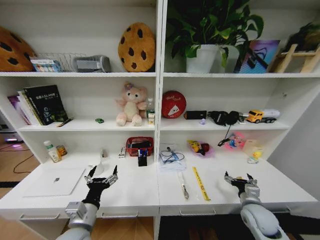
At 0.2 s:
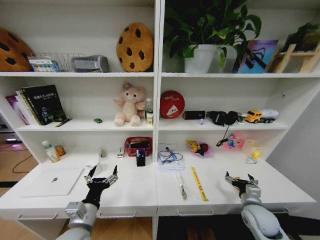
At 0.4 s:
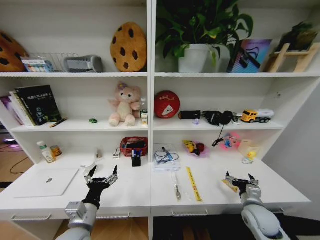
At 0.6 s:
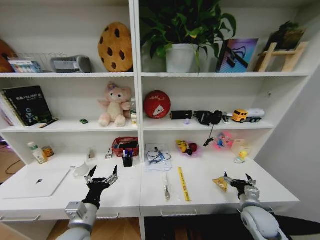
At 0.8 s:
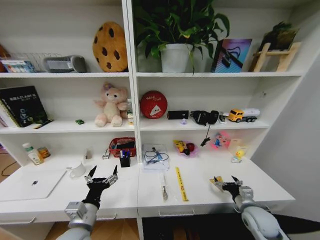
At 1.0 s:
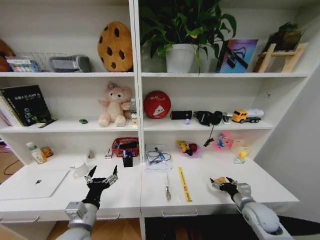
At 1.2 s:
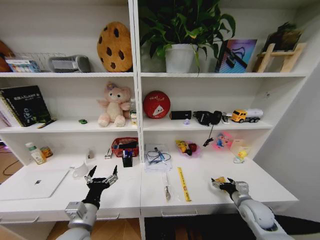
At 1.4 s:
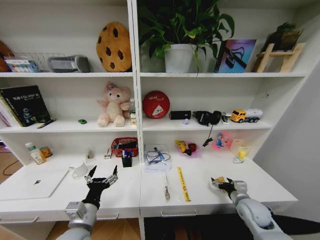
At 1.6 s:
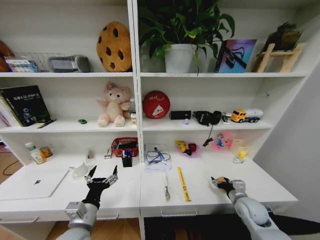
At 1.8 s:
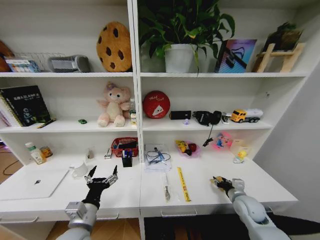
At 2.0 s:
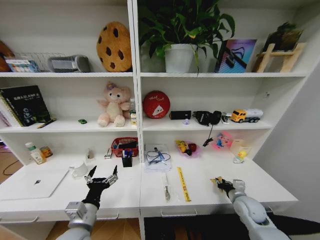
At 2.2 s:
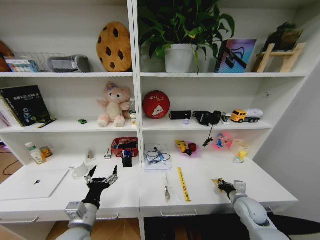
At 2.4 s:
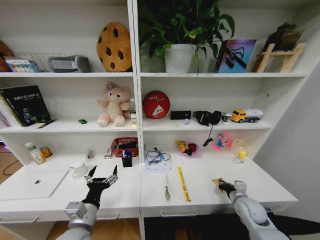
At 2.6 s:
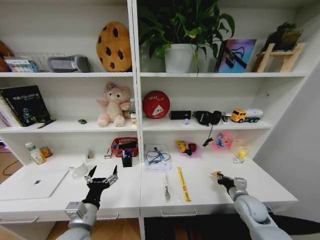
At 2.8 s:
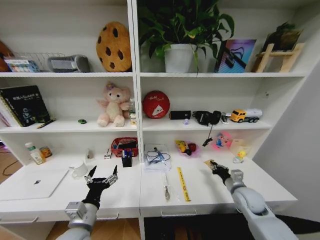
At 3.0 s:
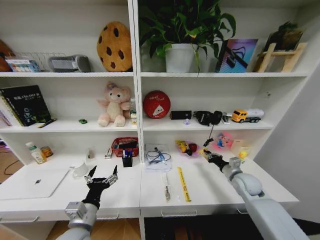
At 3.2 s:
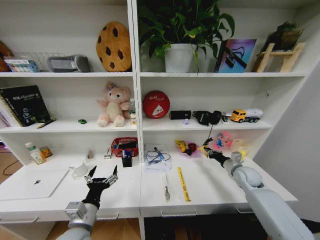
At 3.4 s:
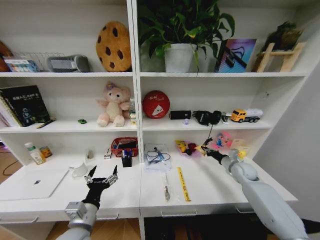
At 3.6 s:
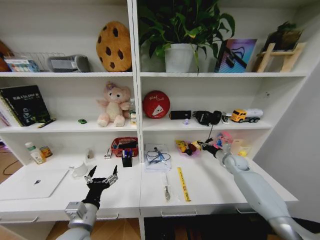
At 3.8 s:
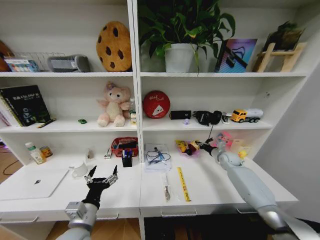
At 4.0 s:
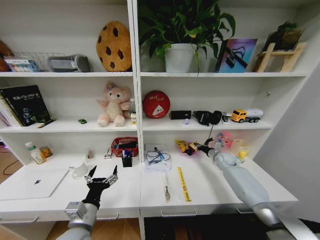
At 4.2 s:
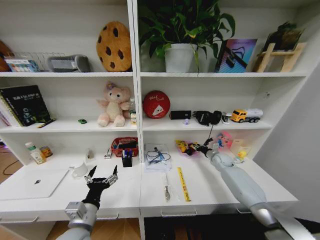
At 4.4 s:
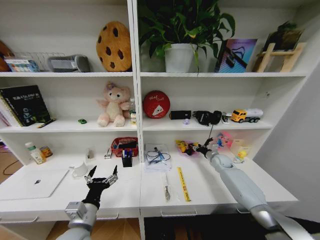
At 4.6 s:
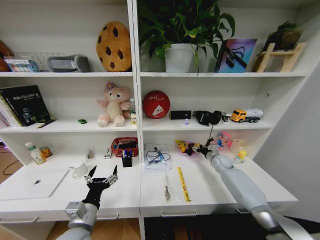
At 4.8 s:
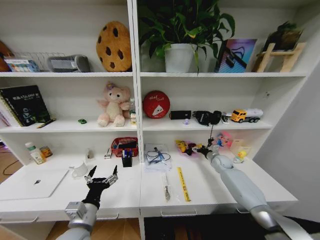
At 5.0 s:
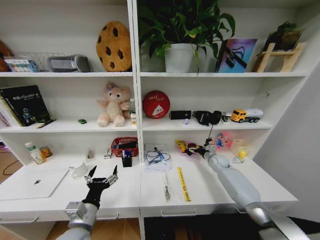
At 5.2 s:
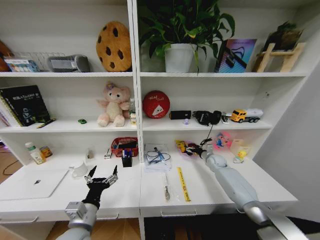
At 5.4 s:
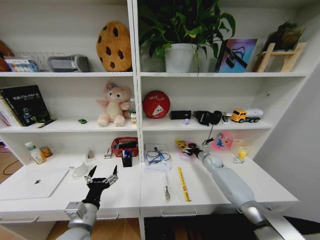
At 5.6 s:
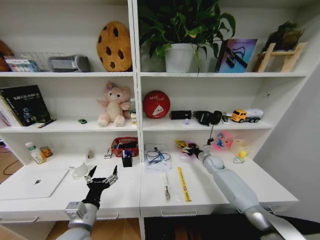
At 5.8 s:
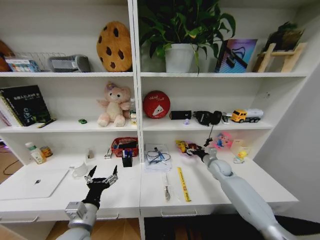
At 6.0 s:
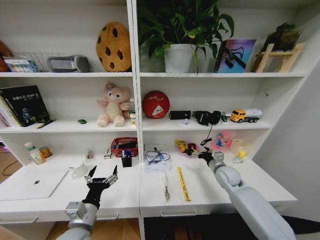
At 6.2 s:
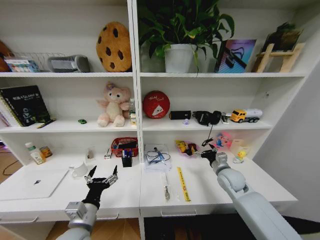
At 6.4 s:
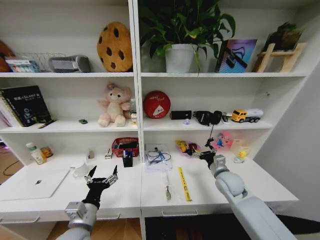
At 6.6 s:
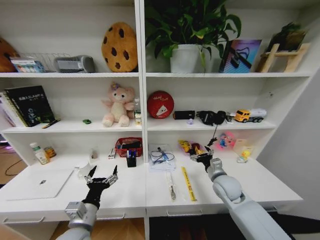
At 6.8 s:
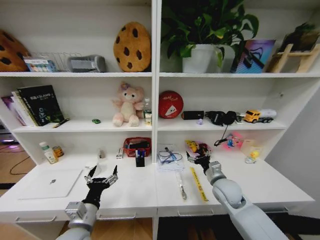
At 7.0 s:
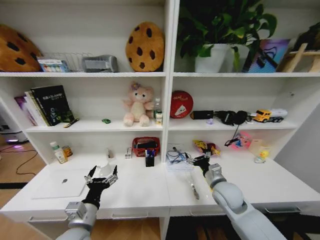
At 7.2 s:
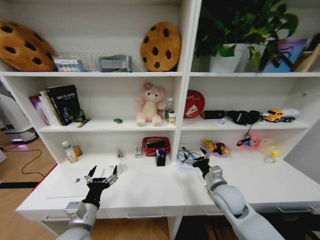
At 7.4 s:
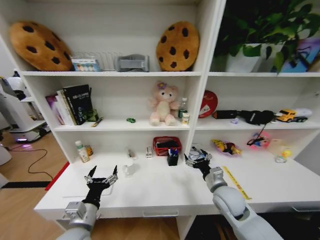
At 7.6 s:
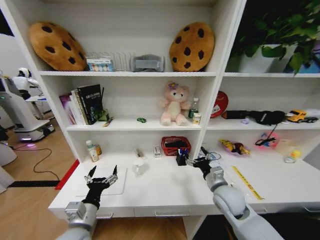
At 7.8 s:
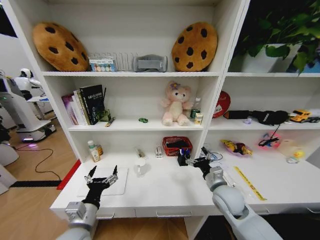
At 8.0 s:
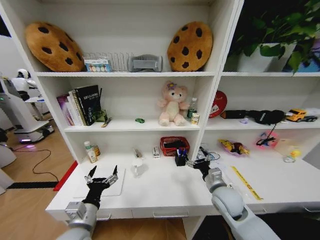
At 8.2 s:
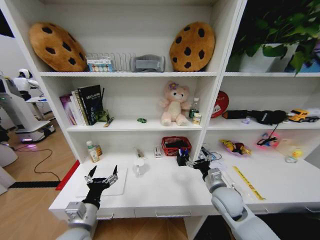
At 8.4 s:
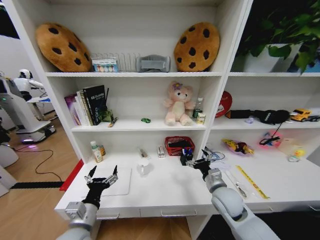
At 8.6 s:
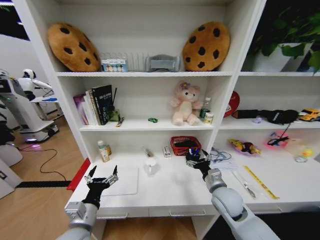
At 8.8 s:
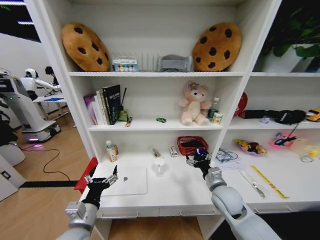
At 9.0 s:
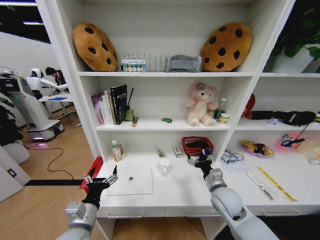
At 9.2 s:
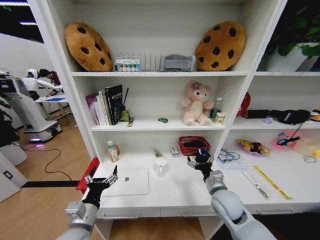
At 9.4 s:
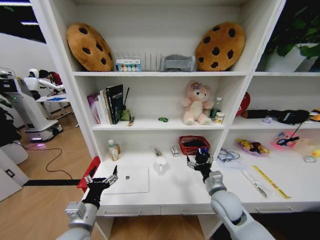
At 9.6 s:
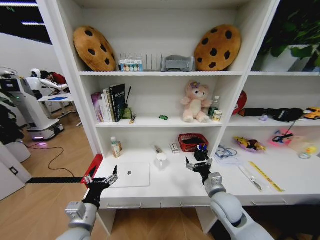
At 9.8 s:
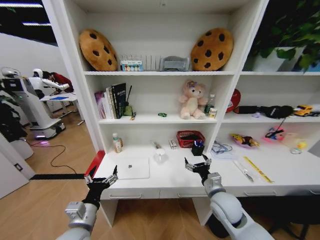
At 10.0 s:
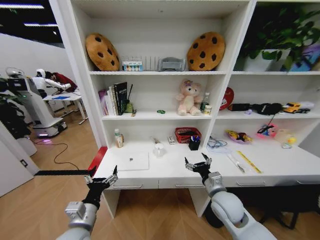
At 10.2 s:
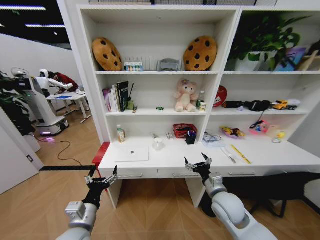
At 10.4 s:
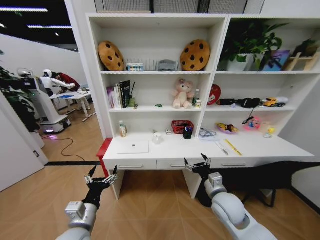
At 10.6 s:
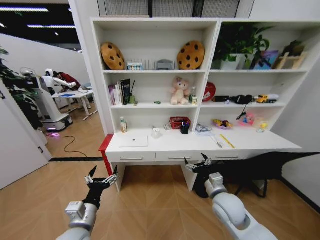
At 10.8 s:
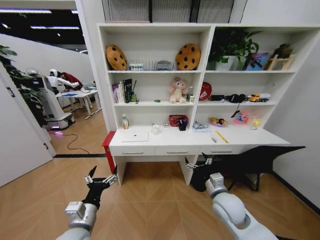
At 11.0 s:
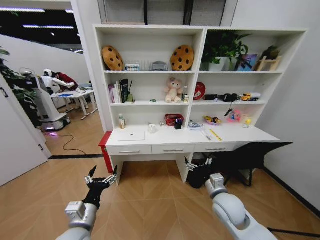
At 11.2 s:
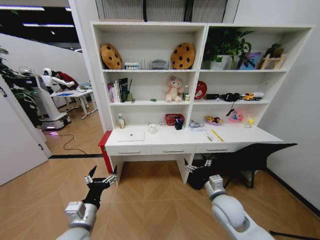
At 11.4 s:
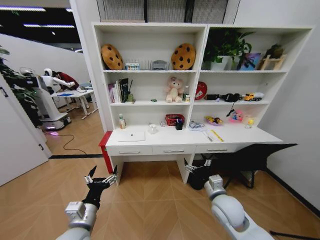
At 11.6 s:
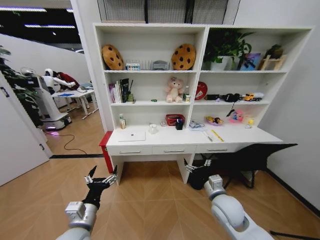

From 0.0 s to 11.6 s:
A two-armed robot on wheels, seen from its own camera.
Task of the whole recording: Organize the objects on the table.
From 1.4 s to 2.8 s: The right gripper closes its fingers.
From 2.8 s to 4.4 s: The right gripper shifts roughly 20 cm forward, and opens up.
From 4.4 s to 5.8 s: The right gripper moves some 5 cm, and opens its fingers.
From 5.8 s to 7.2 s: The right gripper goes about 20 cm backward and to the left.

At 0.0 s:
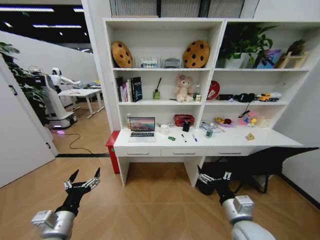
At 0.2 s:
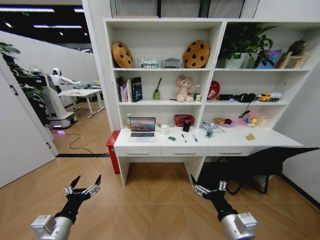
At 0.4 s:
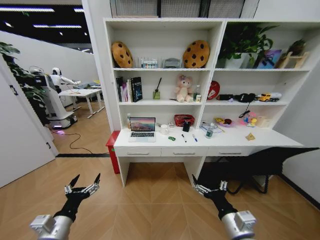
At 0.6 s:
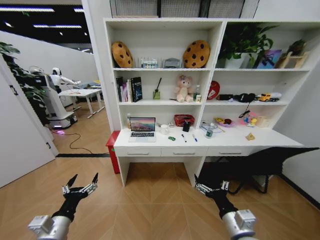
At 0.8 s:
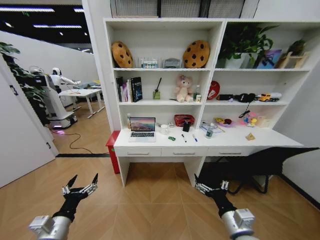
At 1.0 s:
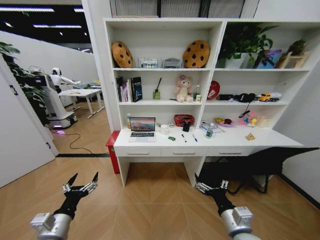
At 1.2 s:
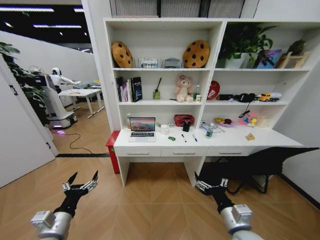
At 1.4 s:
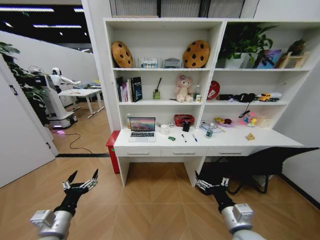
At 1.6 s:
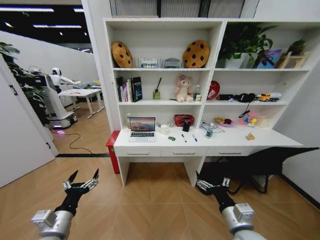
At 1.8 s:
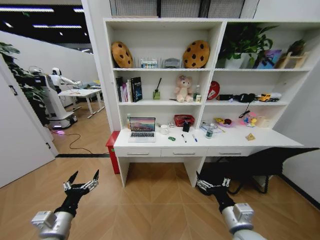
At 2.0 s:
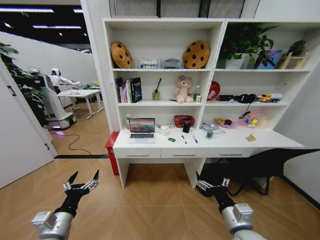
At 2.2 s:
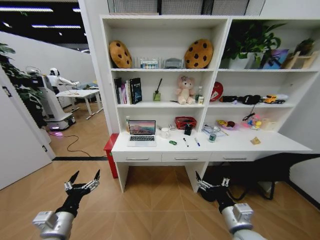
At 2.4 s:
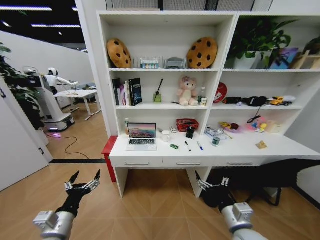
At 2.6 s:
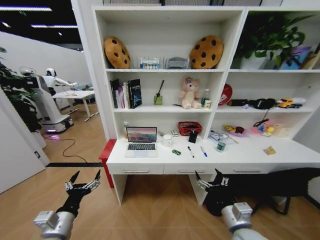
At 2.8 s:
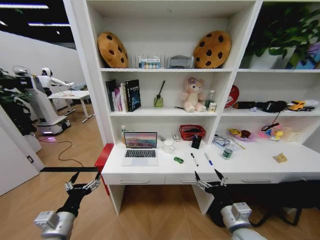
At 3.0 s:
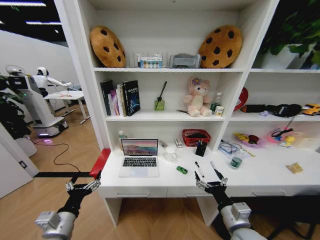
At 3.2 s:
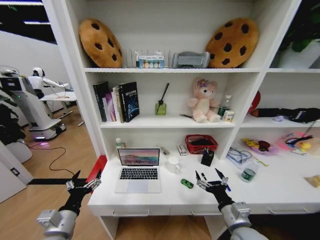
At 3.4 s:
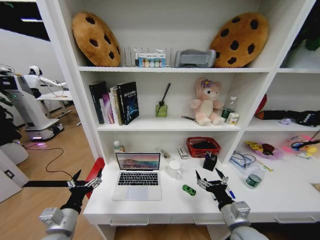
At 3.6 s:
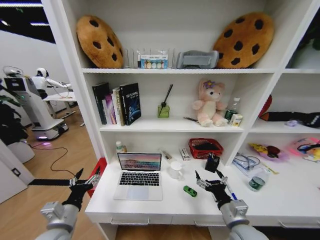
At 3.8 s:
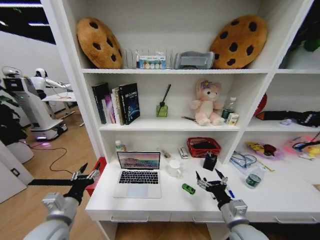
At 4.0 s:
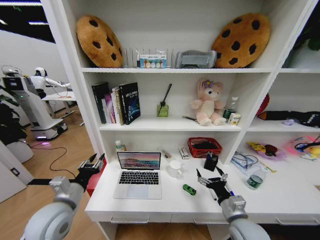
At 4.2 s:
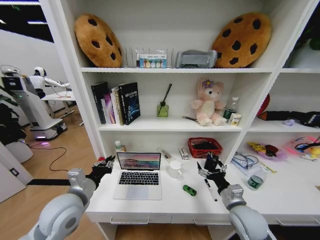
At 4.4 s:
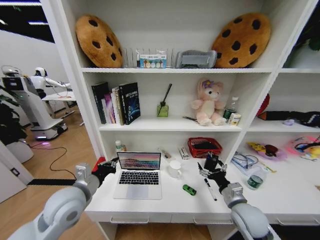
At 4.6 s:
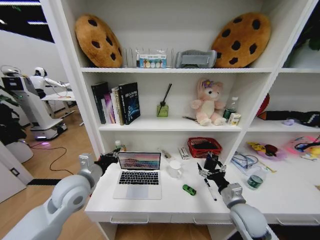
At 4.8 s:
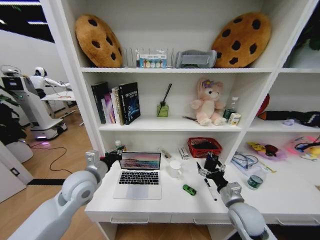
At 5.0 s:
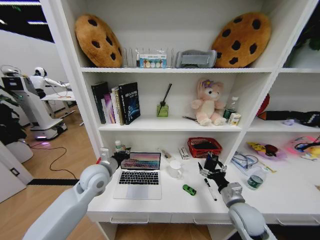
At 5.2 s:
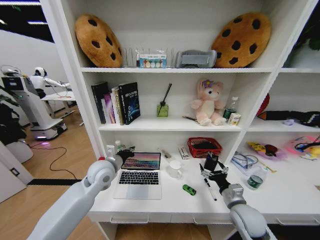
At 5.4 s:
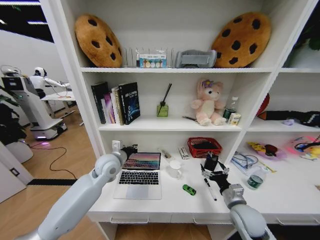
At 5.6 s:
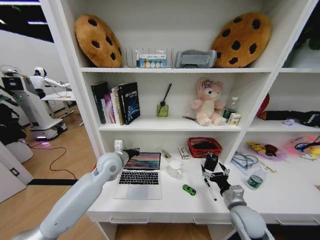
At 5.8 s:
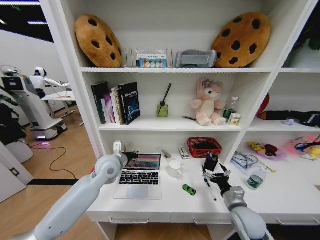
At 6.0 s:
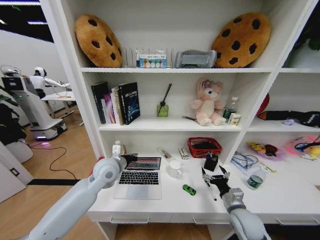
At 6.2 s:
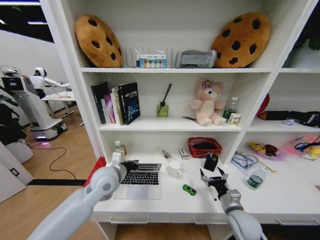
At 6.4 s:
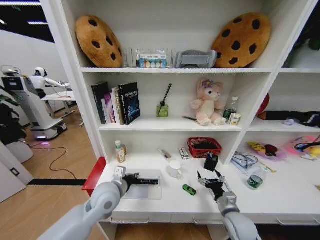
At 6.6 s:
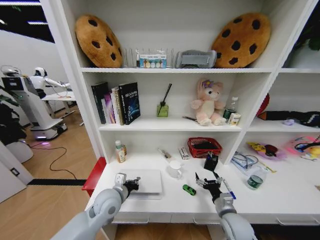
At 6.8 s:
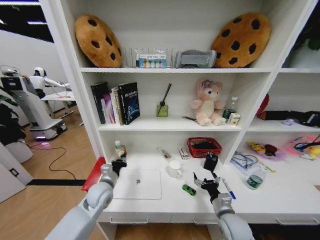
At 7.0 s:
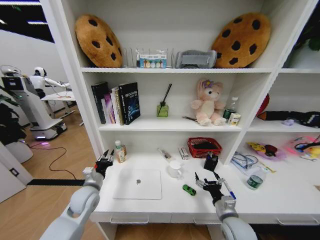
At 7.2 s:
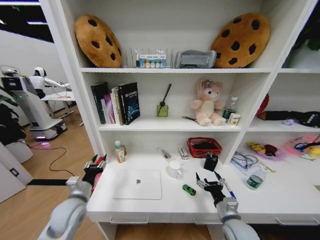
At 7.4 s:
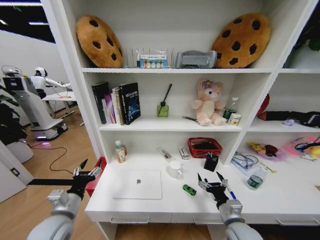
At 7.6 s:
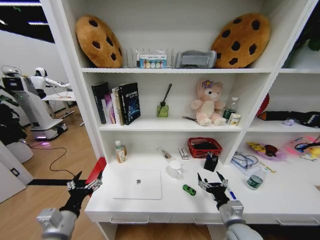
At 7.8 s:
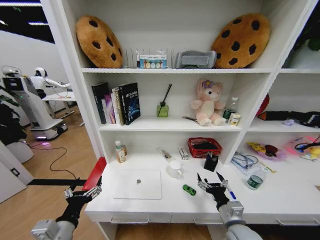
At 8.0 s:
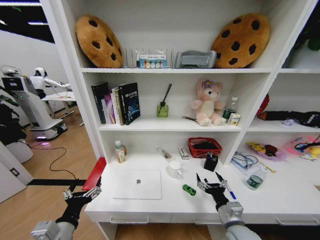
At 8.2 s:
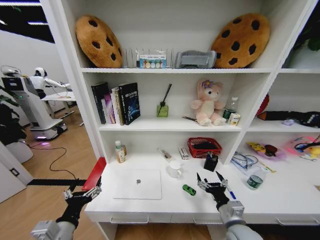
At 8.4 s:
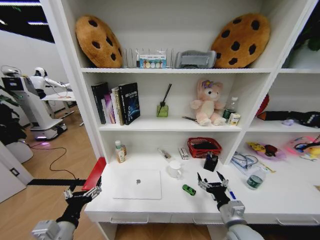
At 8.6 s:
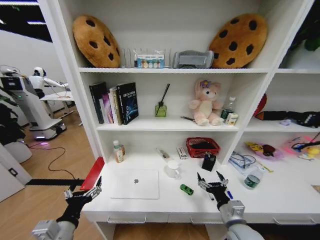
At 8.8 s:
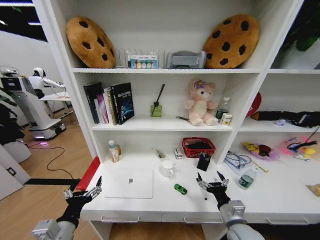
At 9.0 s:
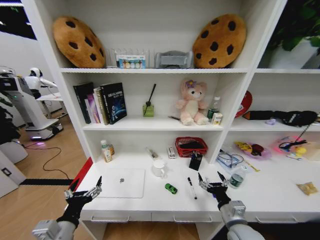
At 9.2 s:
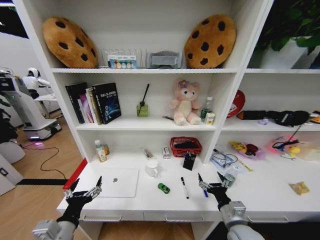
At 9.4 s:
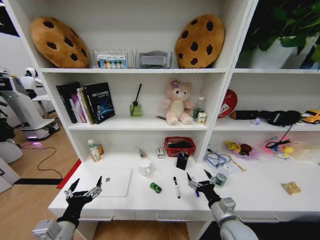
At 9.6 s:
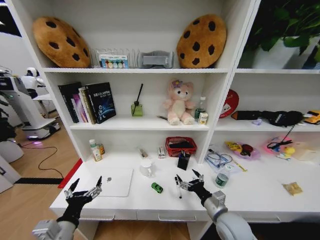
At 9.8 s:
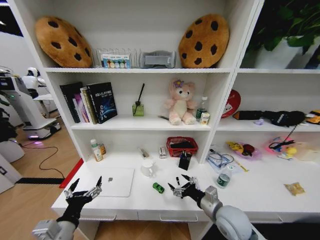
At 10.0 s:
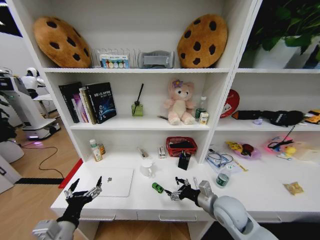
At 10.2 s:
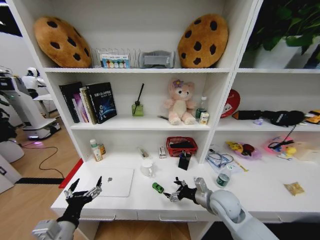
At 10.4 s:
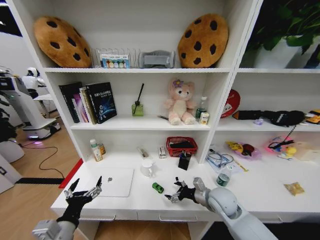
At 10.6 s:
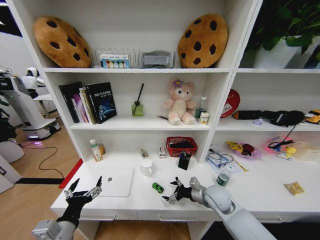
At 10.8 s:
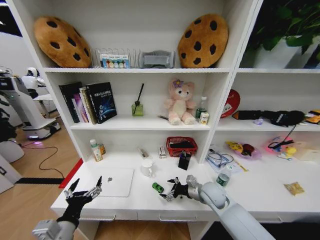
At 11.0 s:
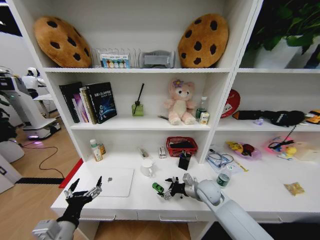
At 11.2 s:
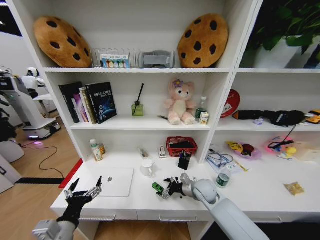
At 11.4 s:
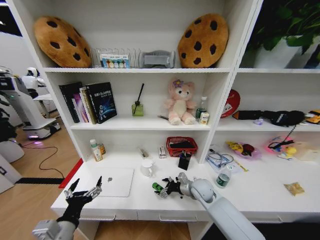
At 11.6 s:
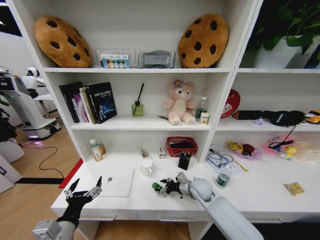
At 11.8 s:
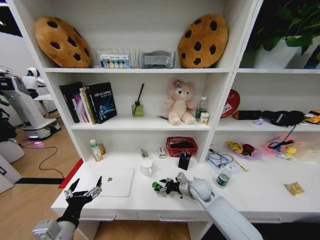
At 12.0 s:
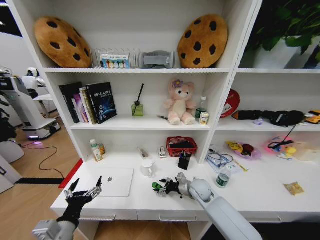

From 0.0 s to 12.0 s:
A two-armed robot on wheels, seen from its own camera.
Task of the whole recording: Organize the objects on the table.
From 3.0 s to 4.4 s: The right gripper heads forward, covering roughly 5 cm. Meanwhile the left gripper is displaced forward and upward by about 15 cm, and closes its fingers.
From 4.4 s to 6.0 s: The left gripper travels forward and to the right by approximately 15 cm.
From 6.0 s to 7.6 s: The left gripper shifts approximately 25 cm backward and to the left, and opens up, while the right gripper shifts by some 5 cm.
From 9.0 s to 10.4 s: The right gripper moves forward, about 10 cm.
From 10.4 s to 12.0 s: The right gripper is displaced forward and downward by some 10 cm.
